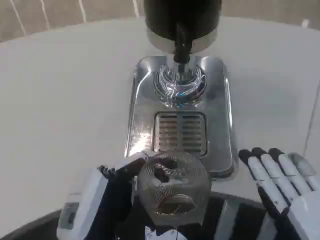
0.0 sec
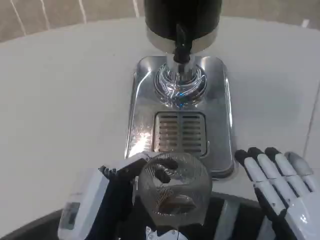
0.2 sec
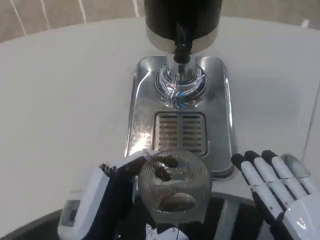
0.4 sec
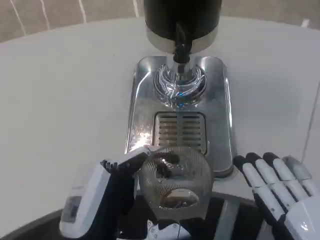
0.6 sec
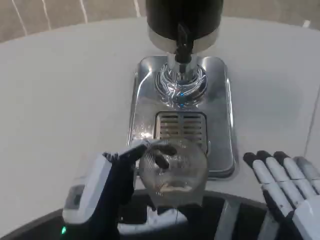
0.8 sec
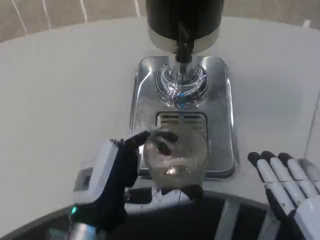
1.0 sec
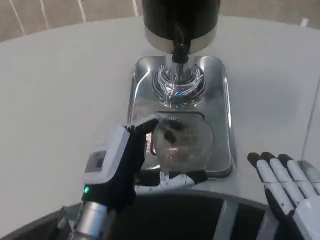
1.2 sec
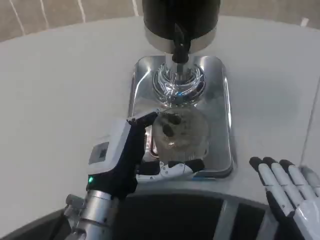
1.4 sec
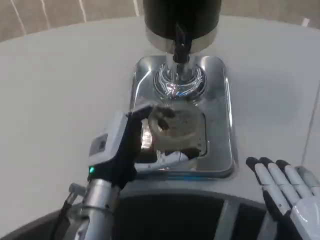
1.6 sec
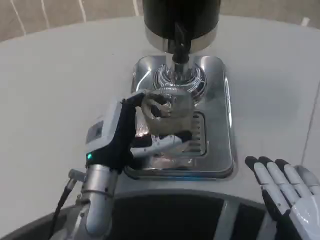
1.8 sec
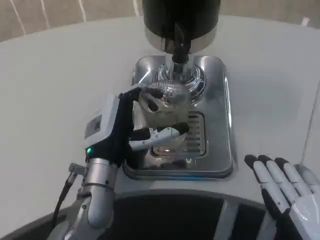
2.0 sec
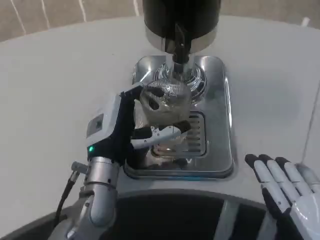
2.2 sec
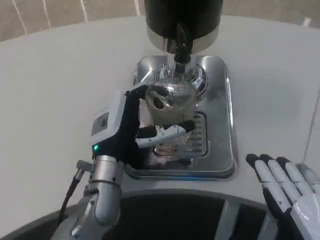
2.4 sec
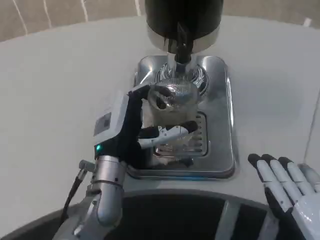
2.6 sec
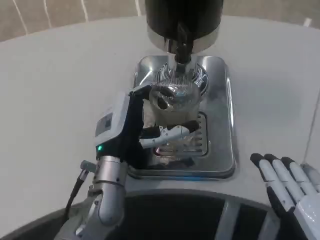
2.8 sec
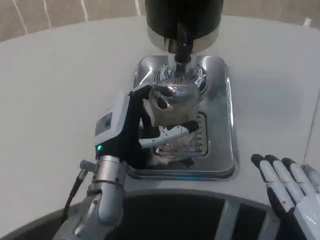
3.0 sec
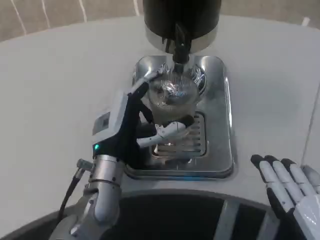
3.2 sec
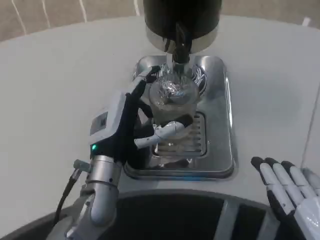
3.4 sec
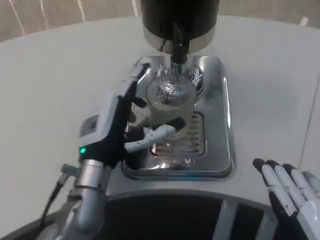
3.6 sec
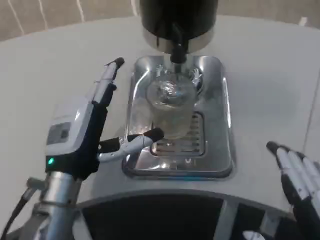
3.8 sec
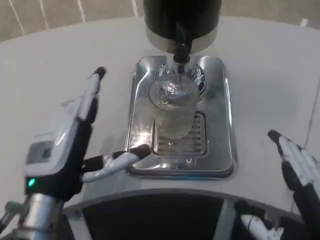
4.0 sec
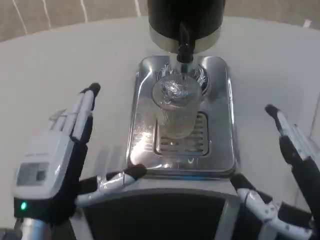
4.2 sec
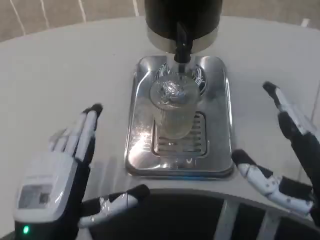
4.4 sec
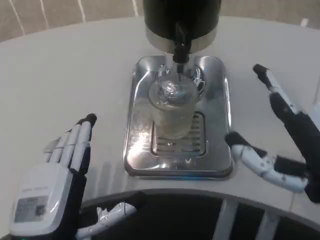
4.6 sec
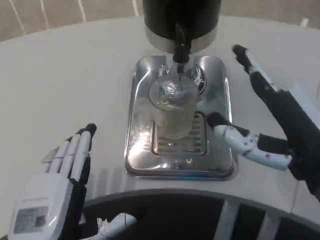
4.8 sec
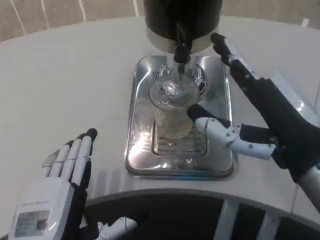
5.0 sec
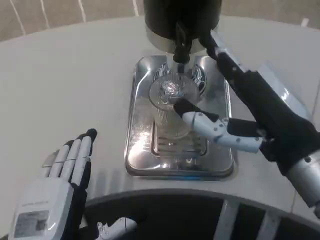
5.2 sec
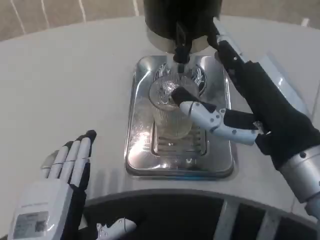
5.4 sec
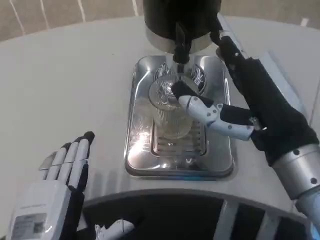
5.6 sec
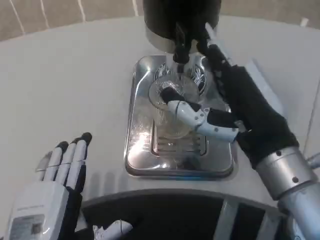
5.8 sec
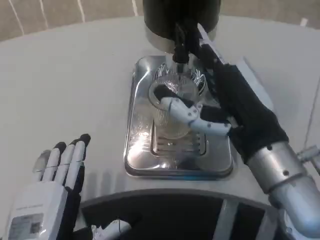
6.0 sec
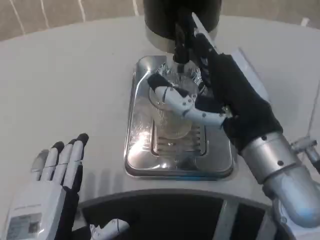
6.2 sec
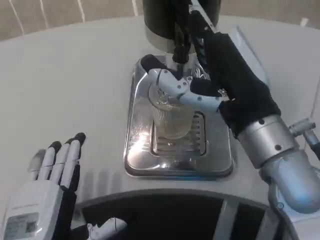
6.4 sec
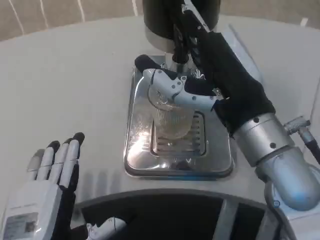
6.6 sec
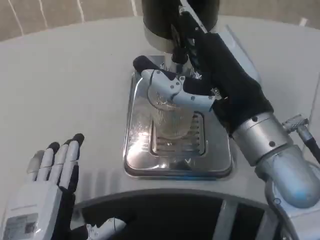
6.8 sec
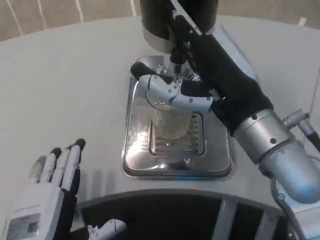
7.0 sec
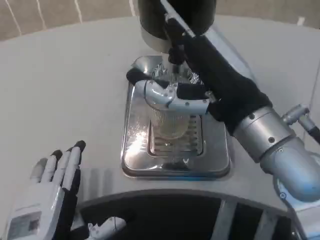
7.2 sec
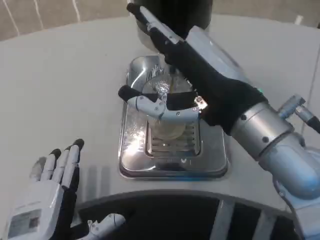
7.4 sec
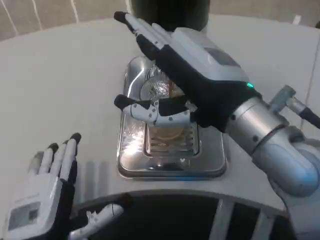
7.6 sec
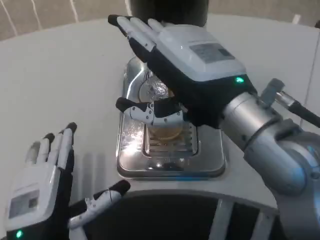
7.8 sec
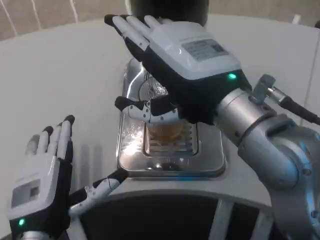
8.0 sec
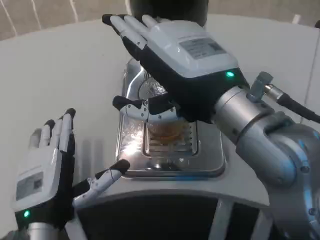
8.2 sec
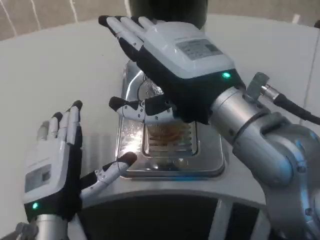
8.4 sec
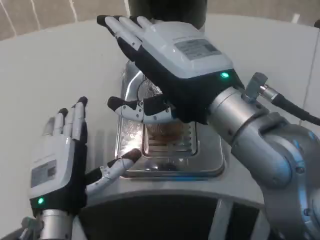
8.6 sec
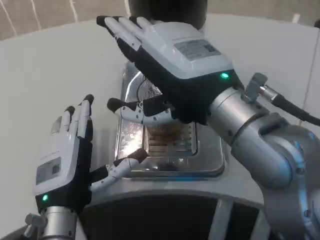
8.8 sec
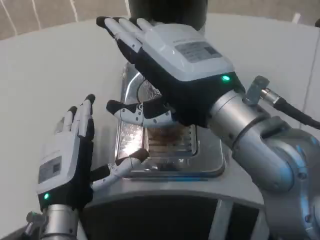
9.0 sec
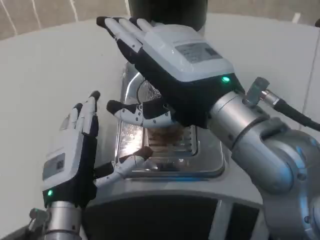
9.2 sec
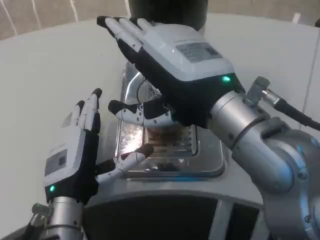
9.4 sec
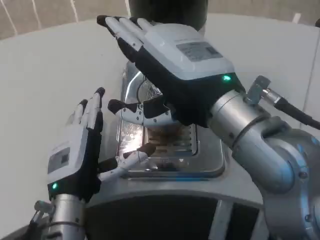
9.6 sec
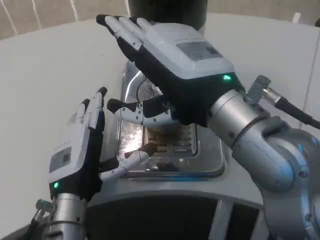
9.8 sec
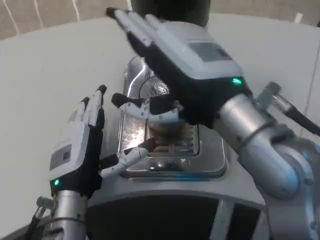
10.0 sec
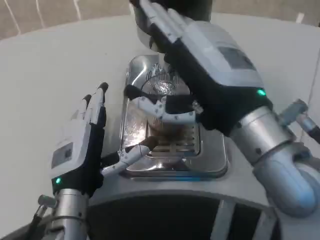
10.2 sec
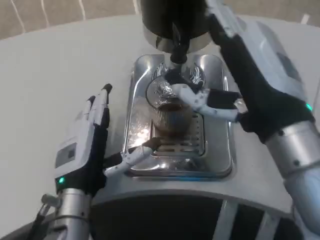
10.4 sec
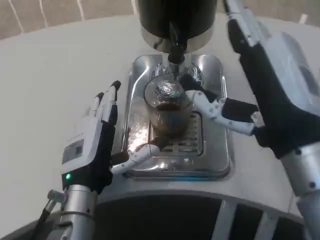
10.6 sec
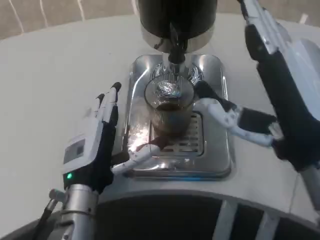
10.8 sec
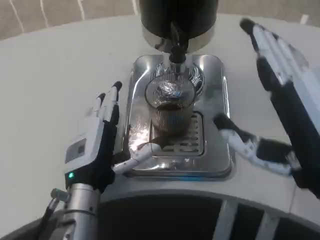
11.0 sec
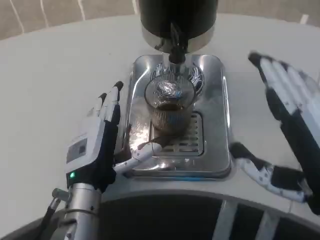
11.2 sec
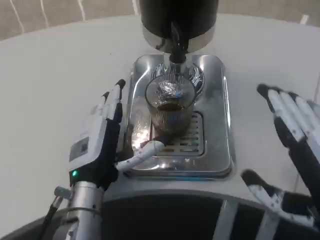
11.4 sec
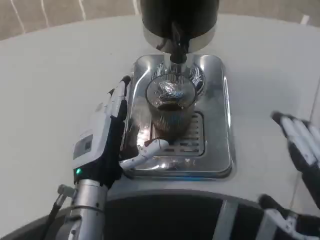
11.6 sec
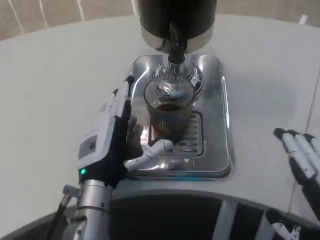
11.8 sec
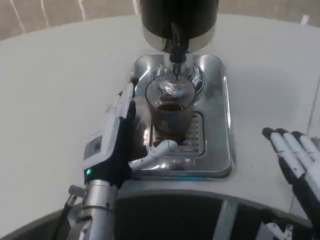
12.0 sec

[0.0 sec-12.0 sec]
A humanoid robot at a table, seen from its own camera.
Task of the whole recording: Grasp the cup under the faucet to collect the drink, then remove the cup.
0.0 sec to 1.6 sec: The left hand is displaced forward by about 15 cm.
1.6 sec to 3.0 sec: There are only small adjustments of the hands.
3.0 sec to 4.4 sec: The left hand travels backward and to the left by some 15 cm. The right hand shifts roughly 5 cm forward.
4.4 sec to 6.0 sec: The right hand is displaced forward and to the left by roughly 10 cm.
6.0 sec to 7.6 sec: The right hand heads upward, covering approximately 5 cm.
7.6 sec to 9.0 sec: The left hand travels forward by roughly 5 cm.
9.0 sec to 10.4 sec: The right hand moves approximately 5 cm.
10.4 sec to 12.0 sec: The right hand goes roughly 15 cm backward, downward and to the right.

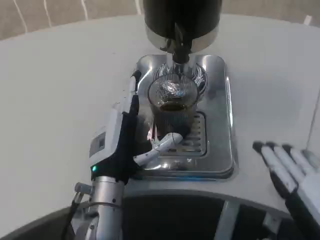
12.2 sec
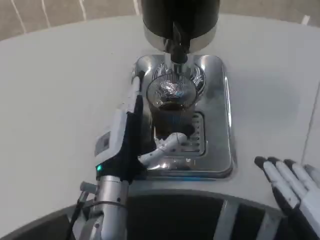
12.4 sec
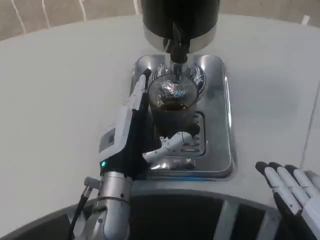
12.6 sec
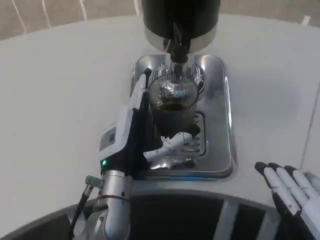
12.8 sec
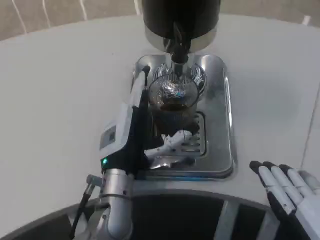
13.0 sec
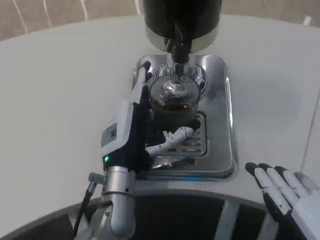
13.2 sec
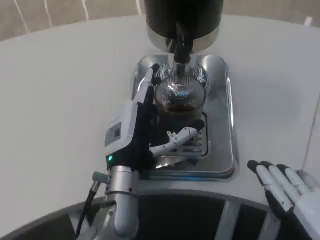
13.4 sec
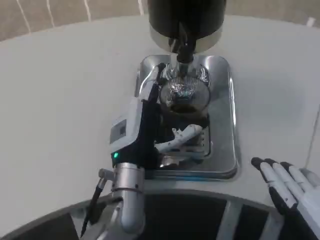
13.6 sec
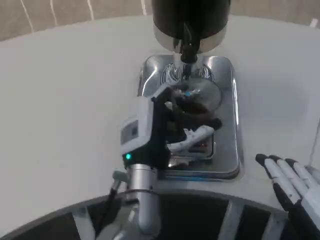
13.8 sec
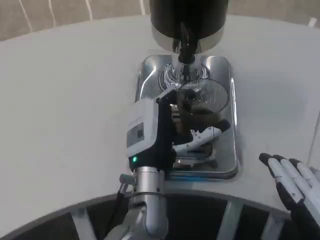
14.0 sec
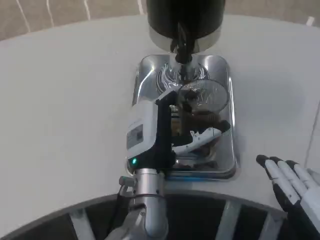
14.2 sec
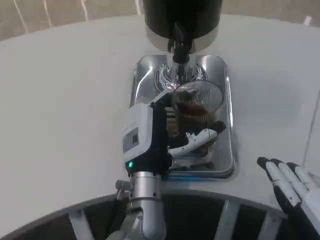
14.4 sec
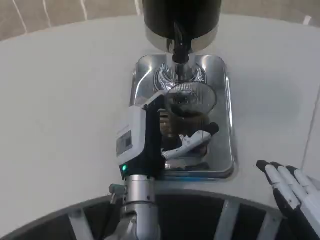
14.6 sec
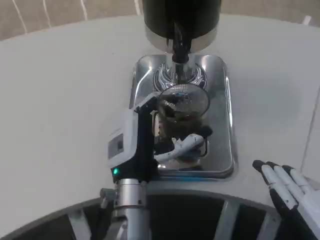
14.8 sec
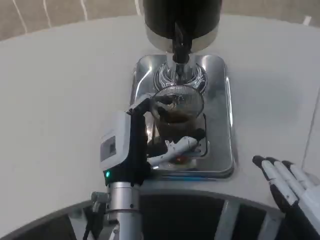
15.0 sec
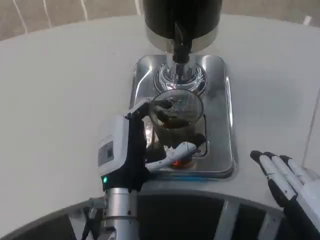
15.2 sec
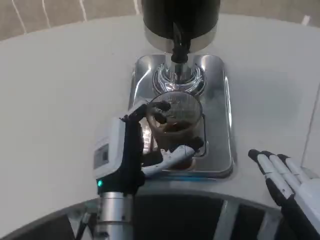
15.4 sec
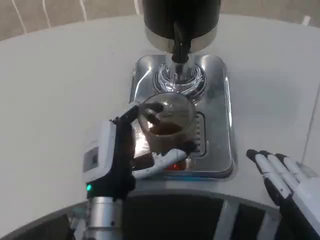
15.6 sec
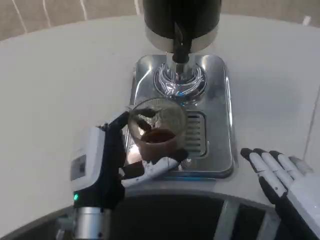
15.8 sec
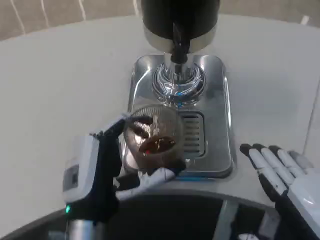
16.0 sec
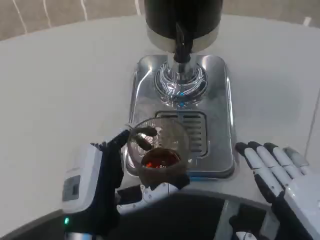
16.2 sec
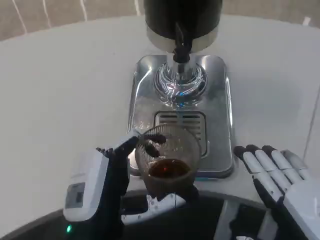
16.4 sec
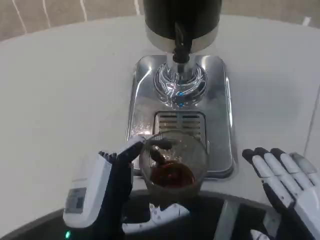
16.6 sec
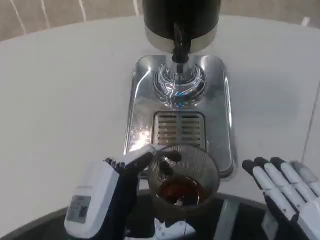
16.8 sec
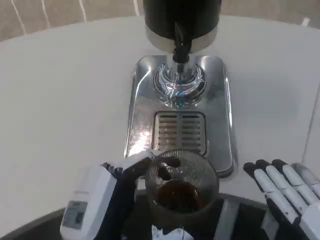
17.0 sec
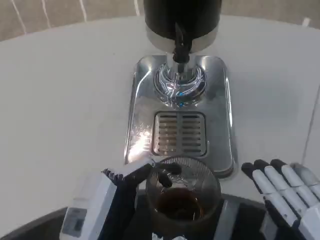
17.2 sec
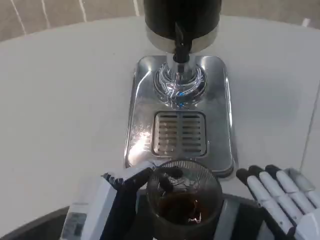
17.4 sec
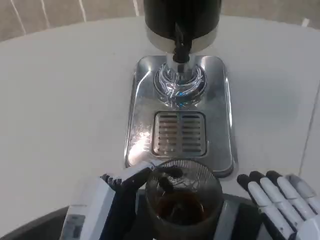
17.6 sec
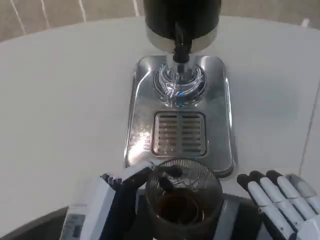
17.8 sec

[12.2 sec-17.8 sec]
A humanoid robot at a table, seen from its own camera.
Task of the whole recording: Grasp the cup under the faucet to collect the drink, then remove the cup.
13.6 sec to 15.0 sec: There are only small adjustments of the hands.
15.0 sec to 16.4 sec: The left hand goes about 10 cm backward.
16.4 sec to 17.8 sec: The left hand changes place by roughly 5 cm.

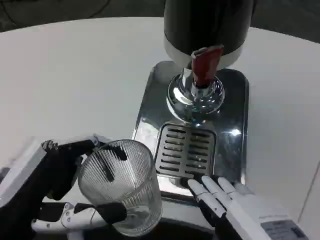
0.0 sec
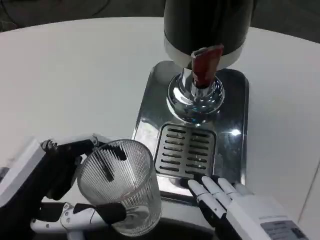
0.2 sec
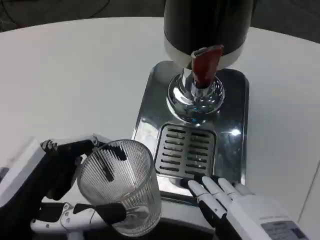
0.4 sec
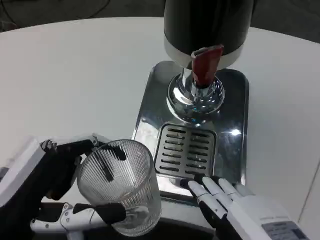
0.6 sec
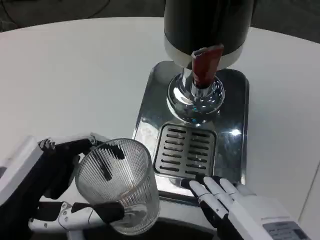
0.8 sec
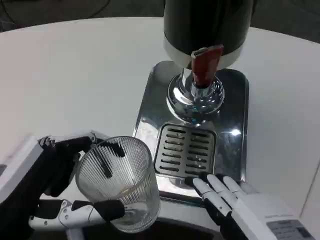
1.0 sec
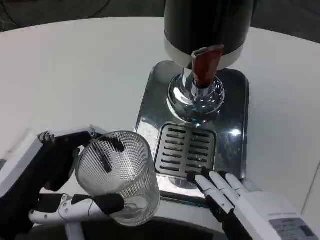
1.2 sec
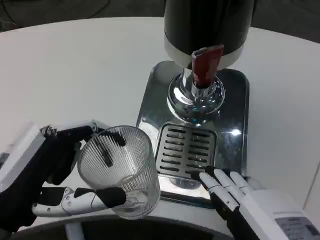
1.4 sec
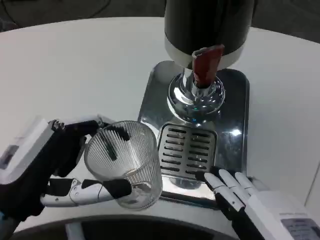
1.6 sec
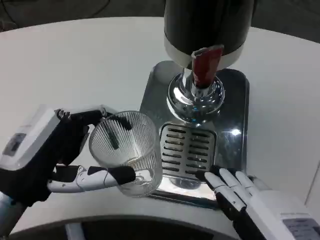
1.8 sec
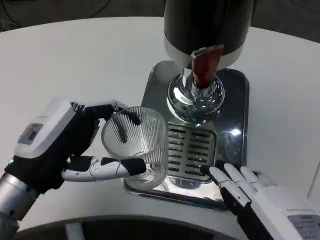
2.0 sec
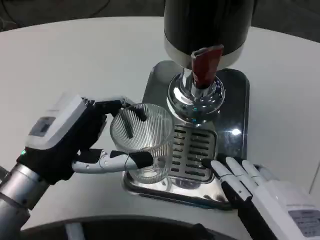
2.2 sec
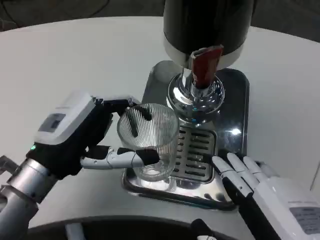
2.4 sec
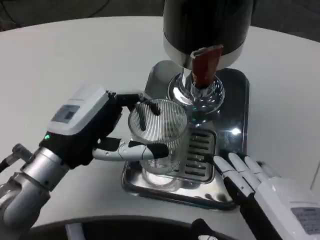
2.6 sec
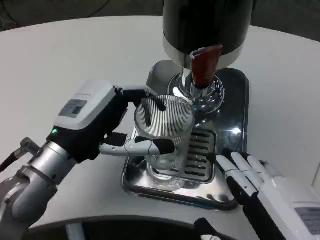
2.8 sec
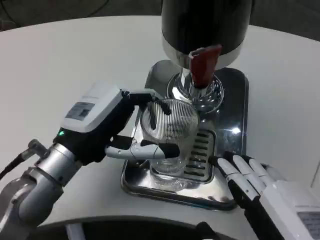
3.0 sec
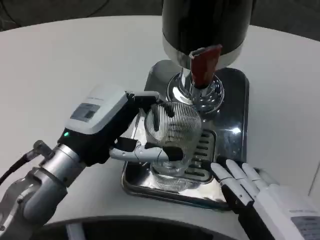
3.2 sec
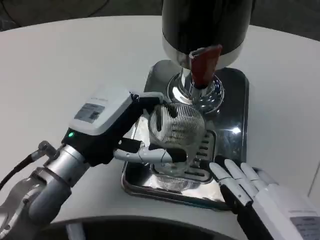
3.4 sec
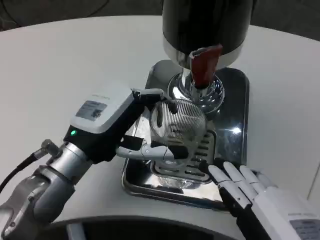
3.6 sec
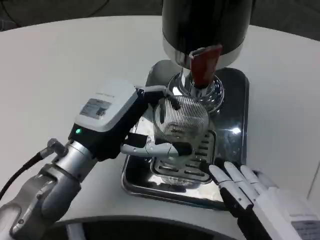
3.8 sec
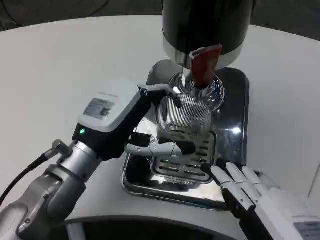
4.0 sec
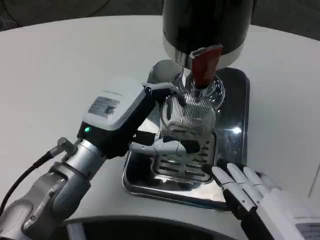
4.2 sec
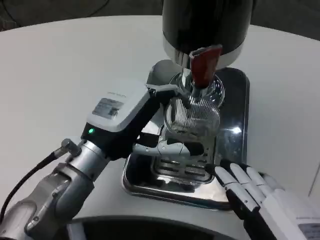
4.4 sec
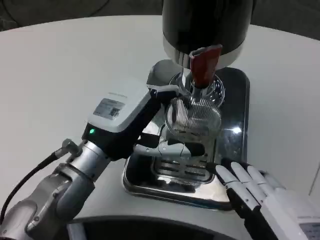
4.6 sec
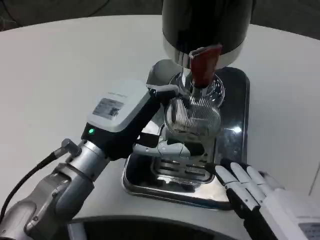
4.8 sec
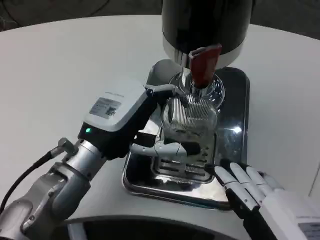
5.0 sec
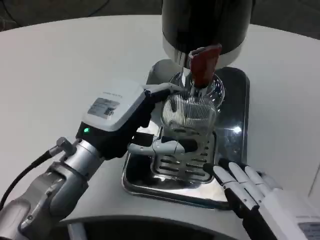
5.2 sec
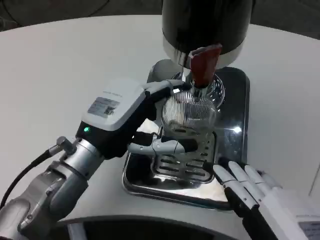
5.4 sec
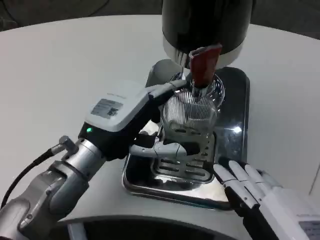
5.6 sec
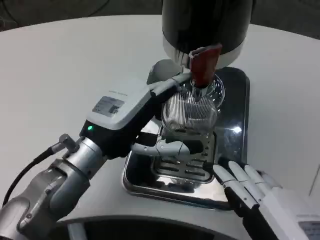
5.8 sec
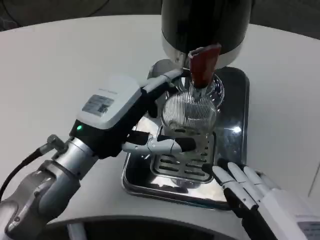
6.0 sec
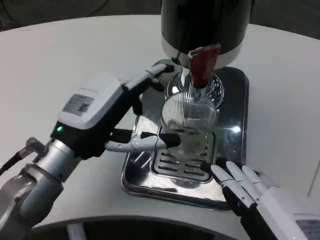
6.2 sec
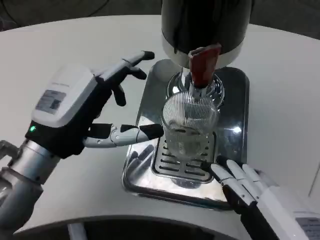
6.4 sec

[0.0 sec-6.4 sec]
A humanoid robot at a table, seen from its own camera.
Task of the whole recording: Grasp the cup under the faucet to collect the drink, then remove the cup.
1.6 sec to 3.2 sec: The left hand is displaced forward and to the right by about 10 cm.
4.8 sec to 6.4 sec: The left hand heads to the left, covering approximately 5 cm.
